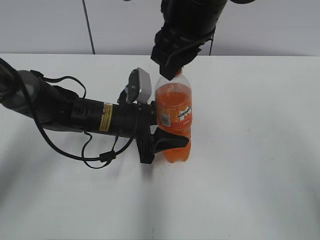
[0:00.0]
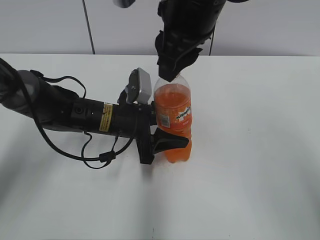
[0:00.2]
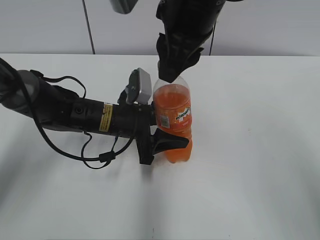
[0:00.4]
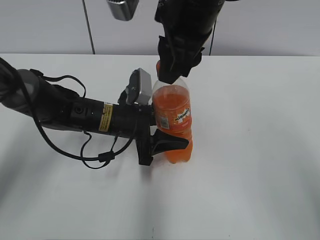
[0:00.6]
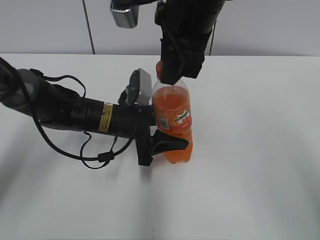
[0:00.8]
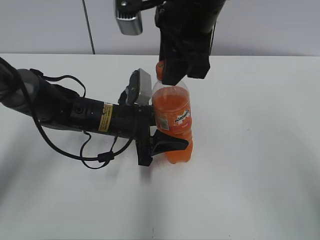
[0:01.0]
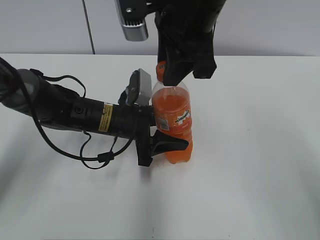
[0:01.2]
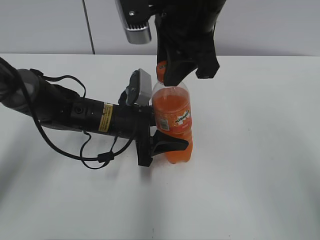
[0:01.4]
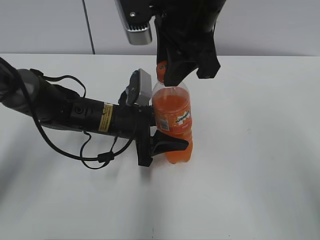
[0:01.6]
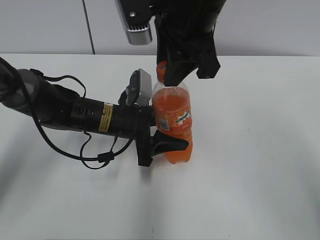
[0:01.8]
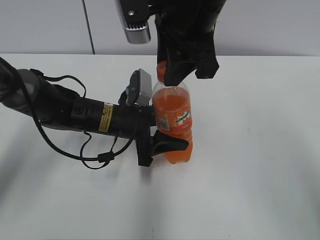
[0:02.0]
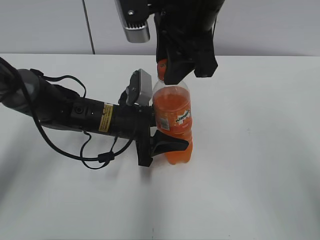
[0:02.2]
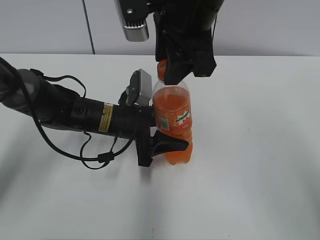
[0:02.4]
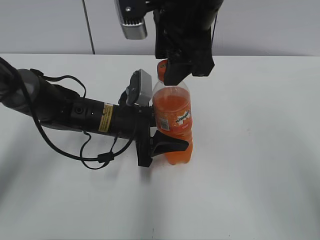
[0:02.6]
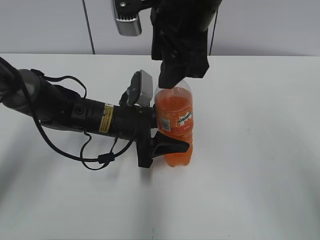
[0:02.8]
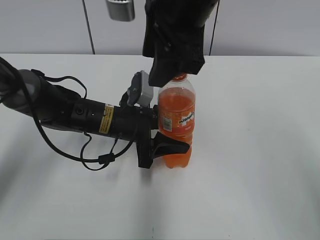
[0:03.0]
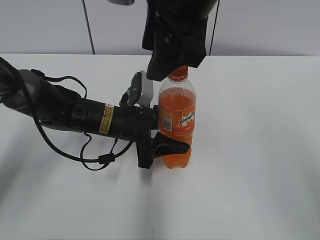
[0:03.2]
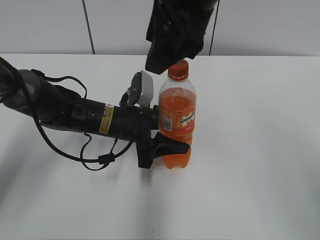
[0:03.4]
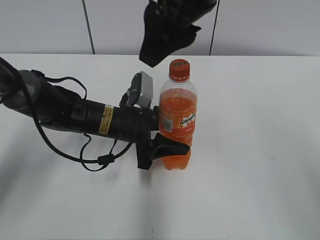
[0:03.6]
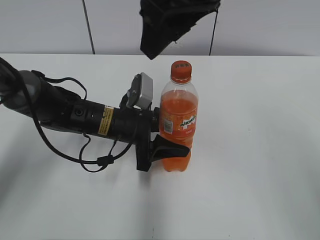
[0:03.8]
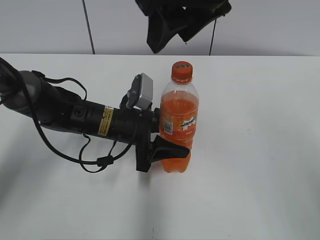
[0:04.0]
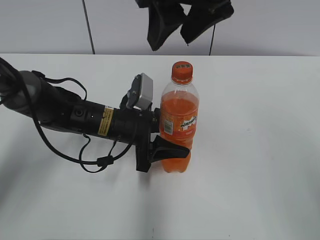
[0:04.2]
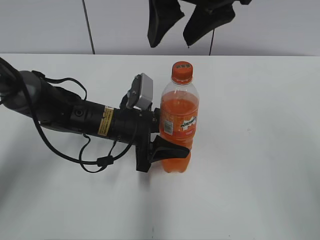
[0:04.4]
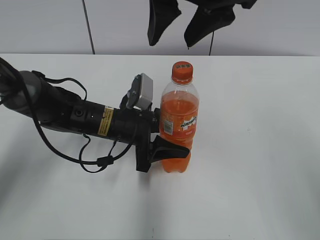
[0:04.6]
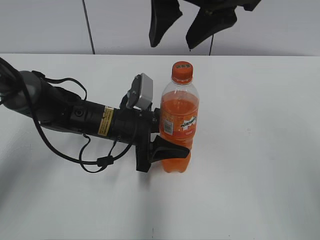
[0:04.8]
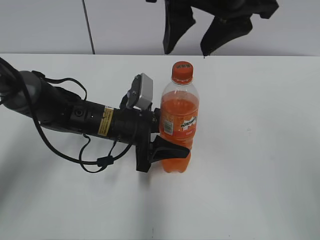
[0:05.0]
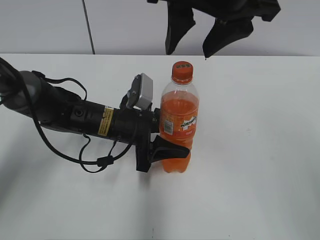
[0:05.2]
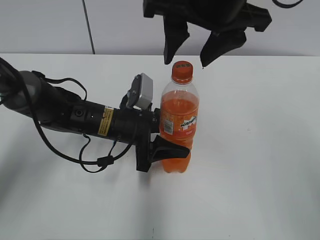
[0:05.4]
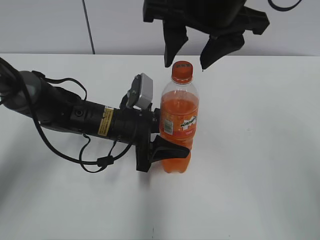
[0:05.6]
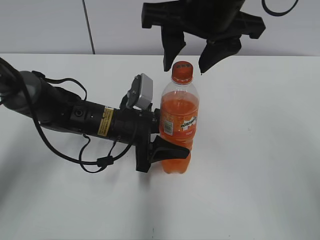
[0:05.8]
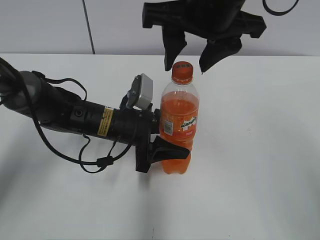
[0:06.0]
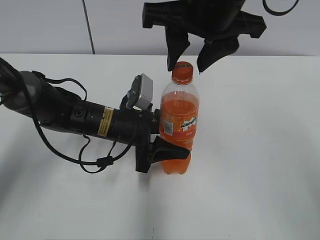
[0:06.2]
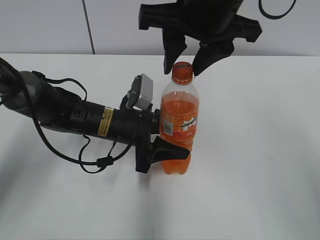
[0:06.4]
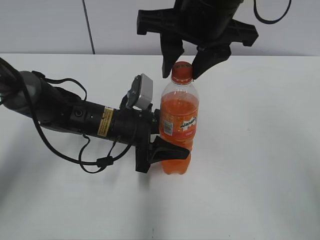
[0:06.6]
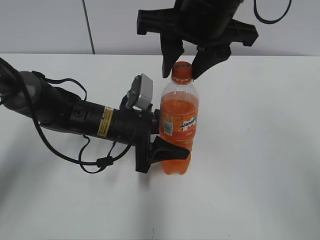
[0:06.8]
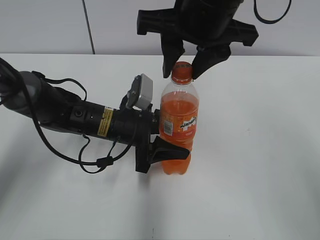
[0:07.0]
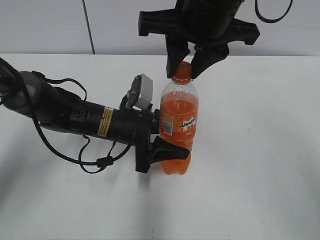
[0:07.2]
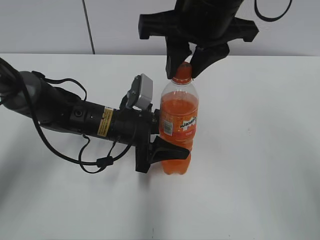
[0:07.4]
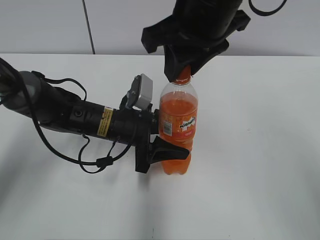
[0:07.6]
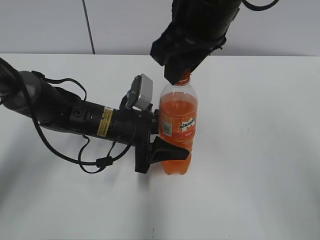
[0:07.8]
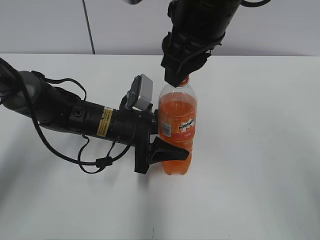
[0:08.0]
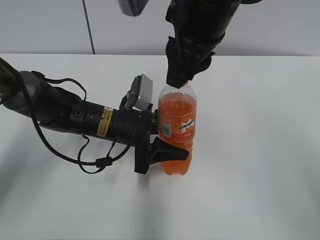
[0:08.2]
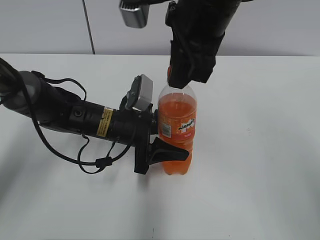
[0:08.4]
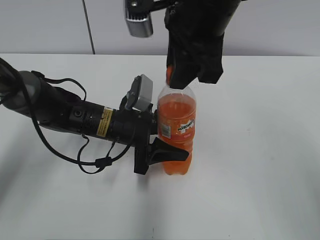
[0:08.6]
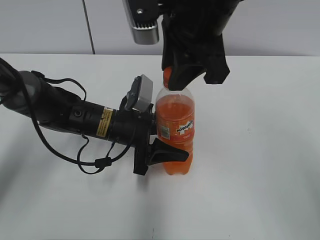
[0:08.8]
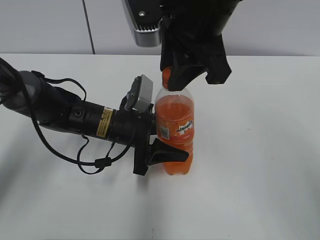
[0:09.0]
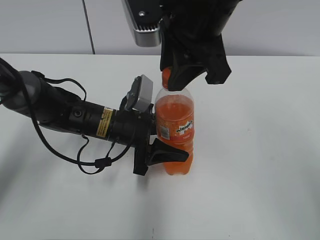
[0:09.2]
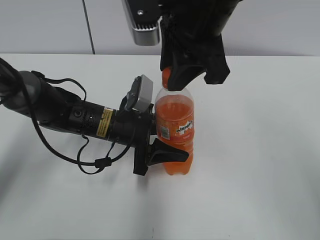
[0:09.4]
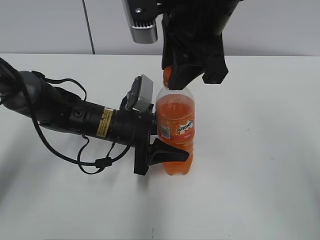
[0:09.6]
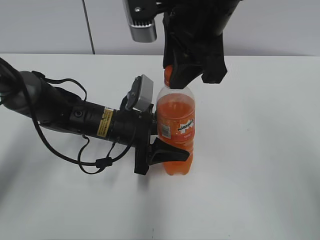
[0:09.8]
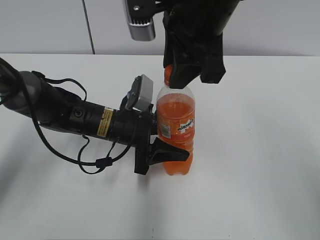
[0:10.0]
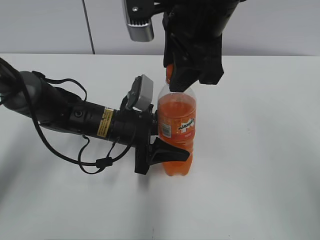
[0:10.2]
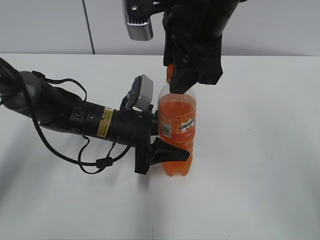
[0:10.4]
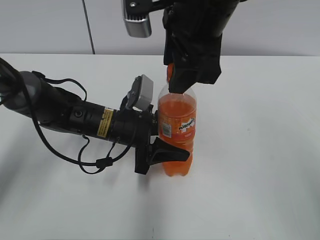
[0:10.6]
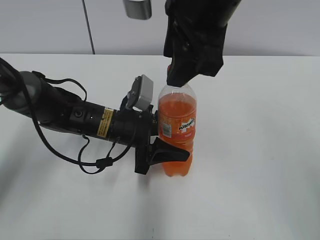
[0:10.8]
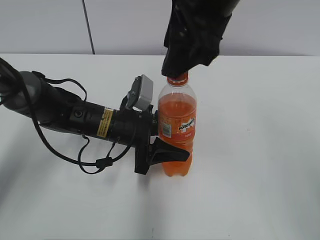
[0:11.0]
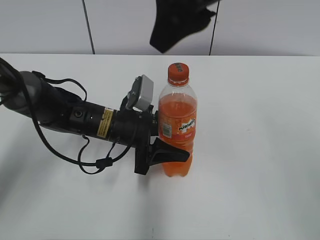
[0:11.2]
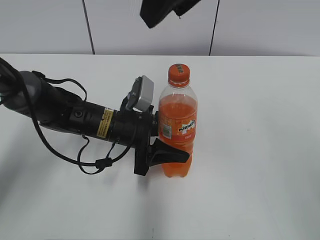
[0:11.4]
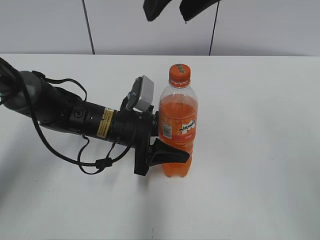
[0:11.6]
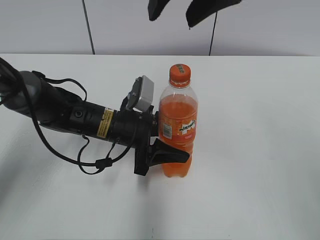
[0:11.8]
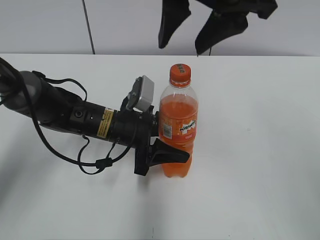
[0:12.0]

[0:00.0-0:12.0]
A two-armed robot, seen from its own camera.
0:01.6 to 0:03.0: The right gripper opens up.
0:04.4 to 0:06.0: The grippers make only small movements.
0:06.0 to 0:07.6: The right gripper closes its fingers.
0:09.0 to 0:10.4: The right gripper opens its fingers.

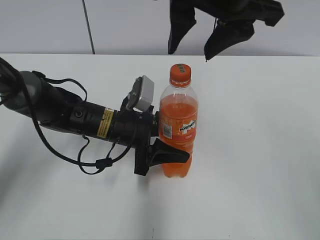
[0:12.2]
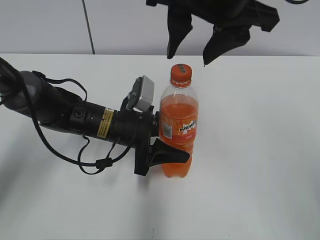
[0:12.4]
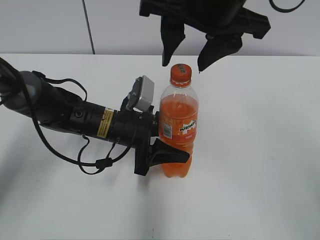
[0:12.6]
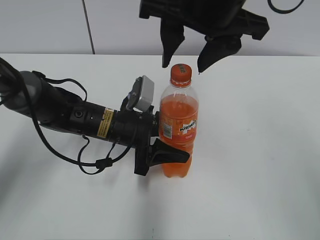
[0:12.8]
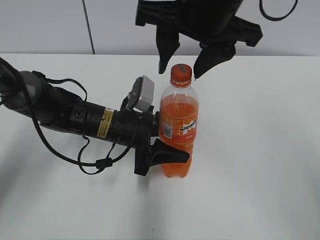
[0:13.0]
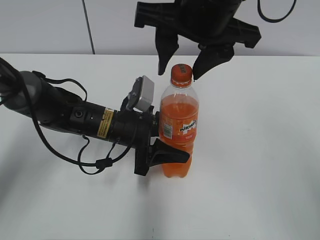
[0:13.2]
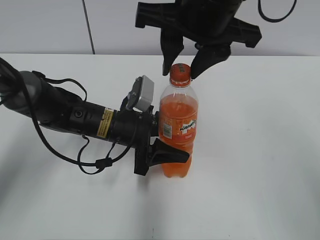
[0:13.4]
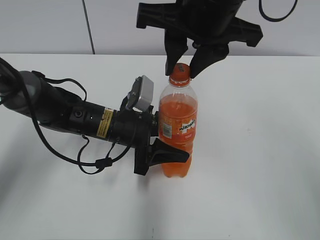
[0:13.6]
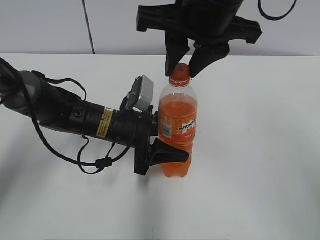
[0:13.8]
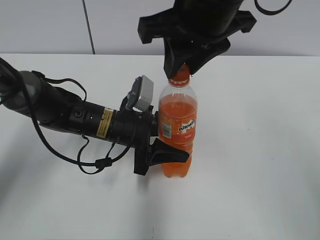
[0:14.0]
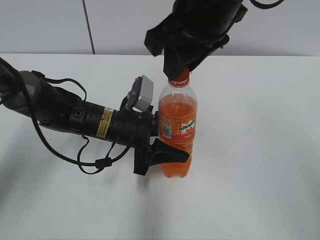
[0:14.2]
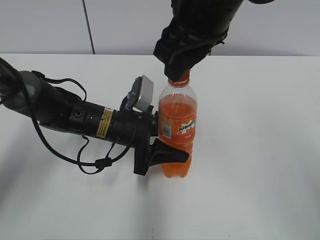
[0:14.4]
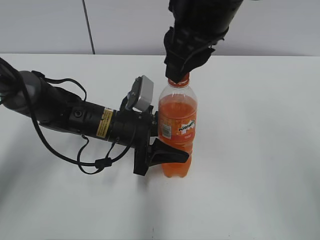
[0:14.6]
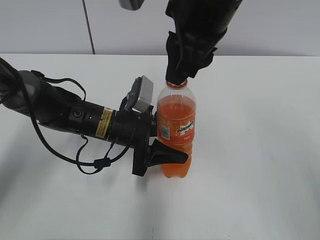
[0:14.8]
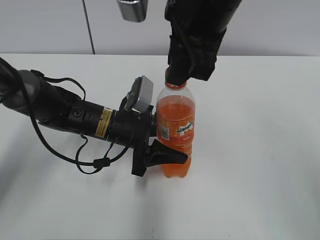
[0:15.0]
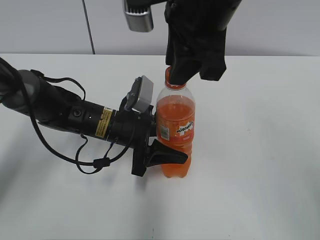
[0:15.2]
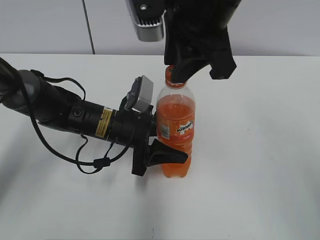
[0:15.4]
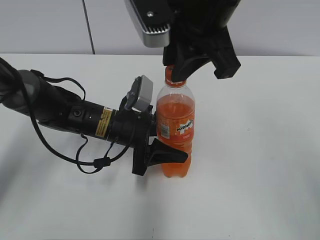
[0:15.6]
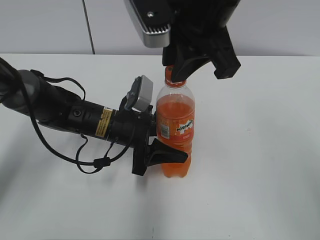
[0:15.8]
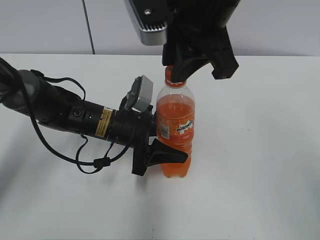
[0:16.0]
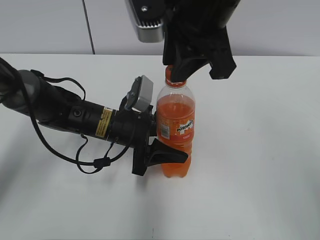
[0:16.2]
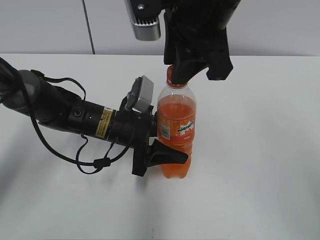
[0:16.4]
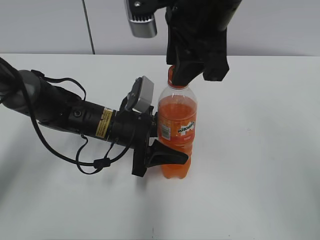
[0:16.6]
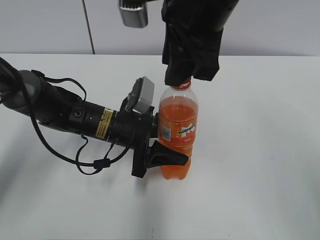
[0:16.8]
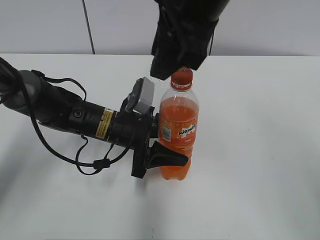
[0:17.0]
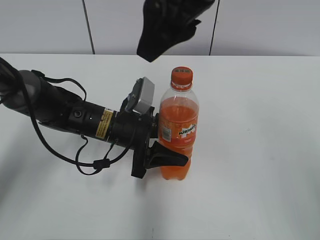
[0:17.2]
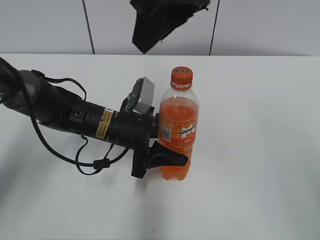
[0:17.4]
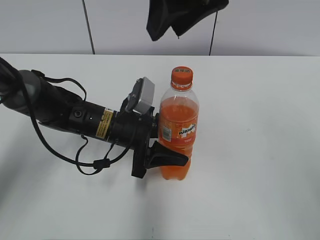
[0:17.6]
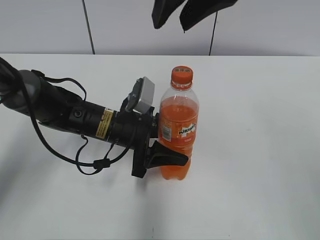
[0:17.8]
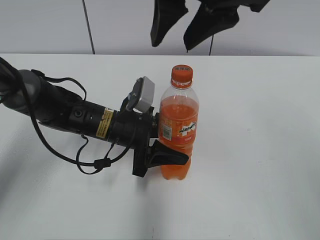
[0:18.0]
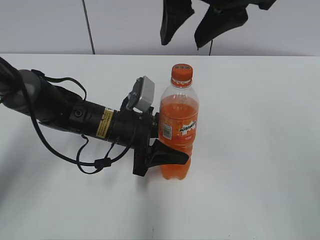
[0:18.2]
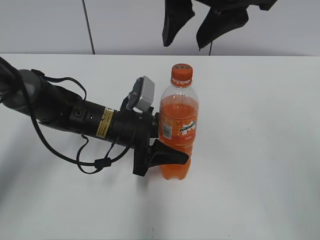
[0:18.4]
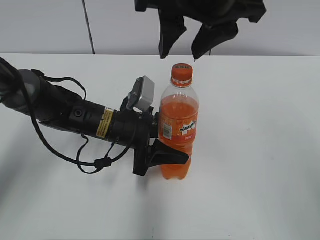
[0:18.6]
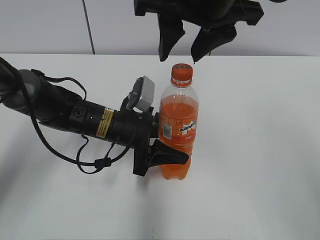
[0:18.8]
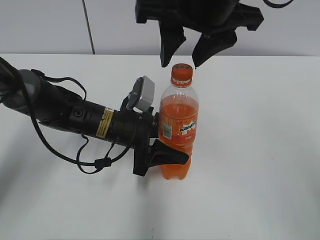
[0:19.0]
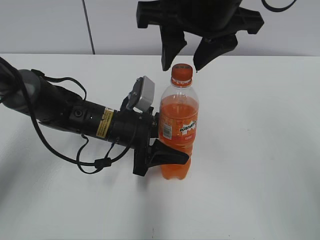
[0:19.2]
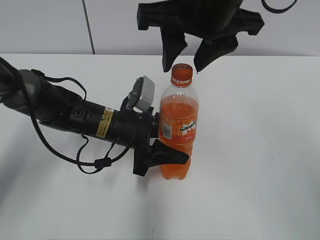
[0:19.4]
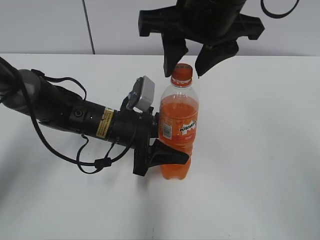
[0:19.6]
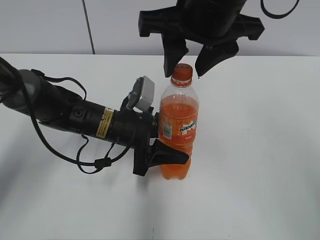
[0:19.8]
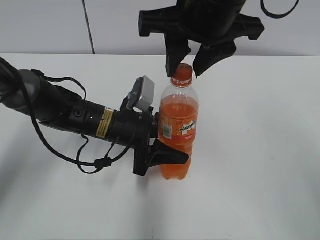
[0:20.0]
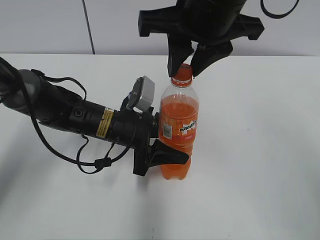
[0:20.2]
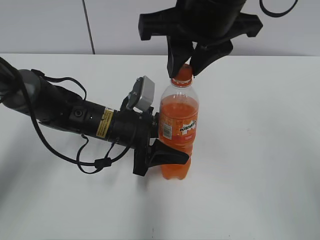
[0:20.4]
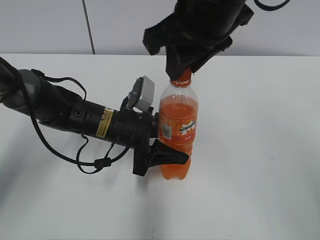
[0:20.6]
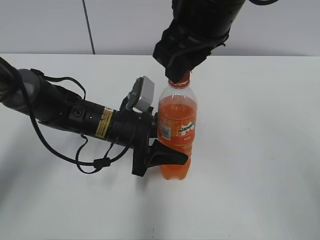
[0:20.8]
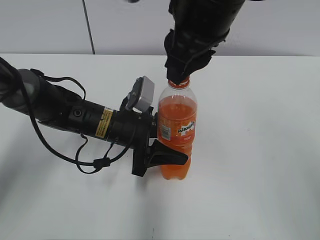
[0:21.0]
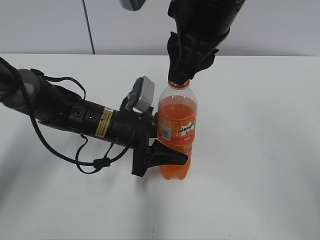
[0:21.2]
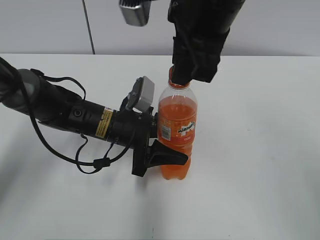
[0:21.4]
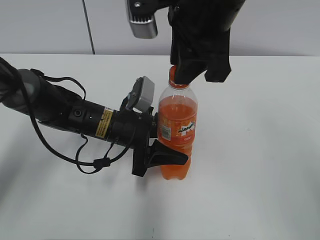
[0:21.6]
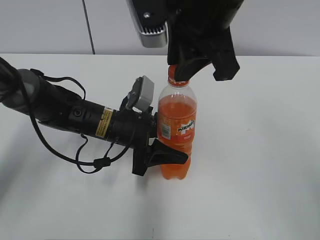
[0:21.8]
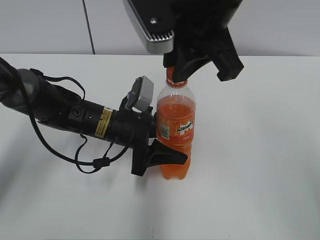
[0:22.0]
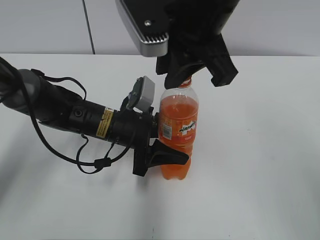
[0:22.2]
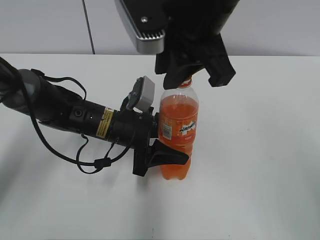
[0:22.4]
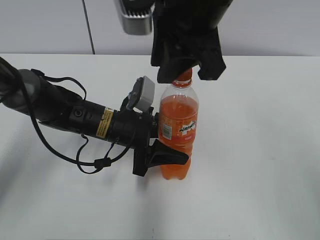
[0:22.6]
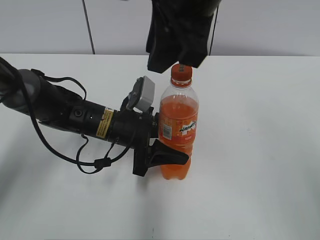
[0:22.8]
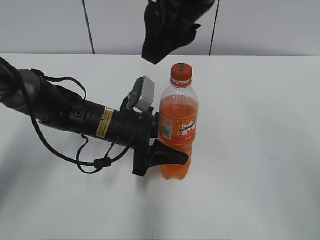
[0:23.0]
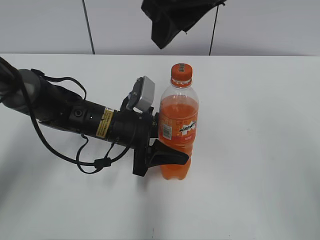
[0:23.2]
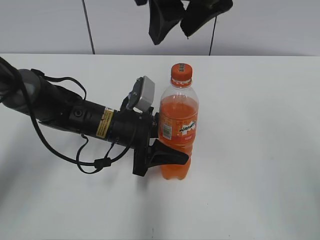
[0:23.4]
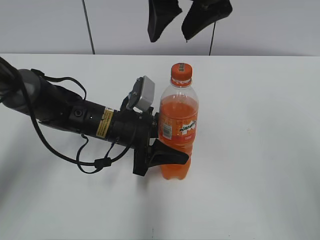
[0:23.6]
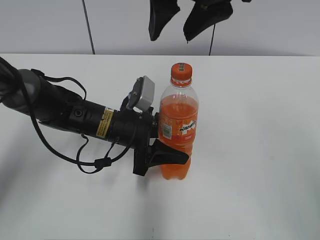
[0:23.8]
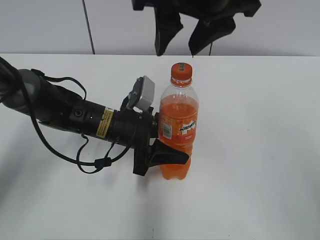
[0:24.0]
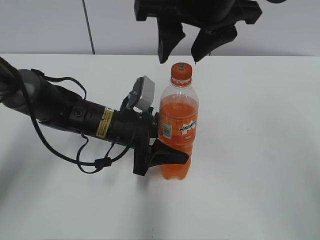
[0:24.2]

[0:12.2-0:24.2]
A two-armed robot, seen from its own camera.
0:12.2 to 0:13.8: The right gripper closes.
0:15.2 to 0:16.6: There are only small adjustments of the grippers.
0:18.2 to 0:19.8: The grippers make only small movements.
0:19.8 to 0:21.2: The right gripper closes its fingers.
0:22.6 to 0:24.2: The right gripper opens its fingers.
